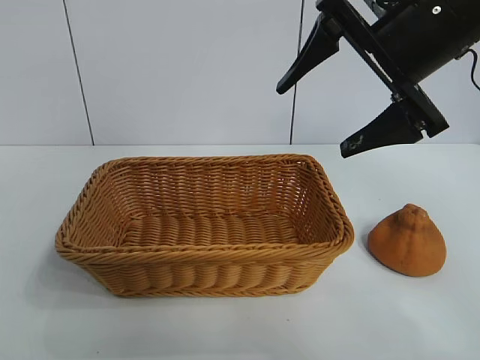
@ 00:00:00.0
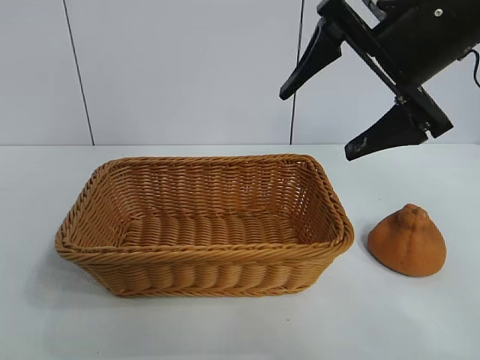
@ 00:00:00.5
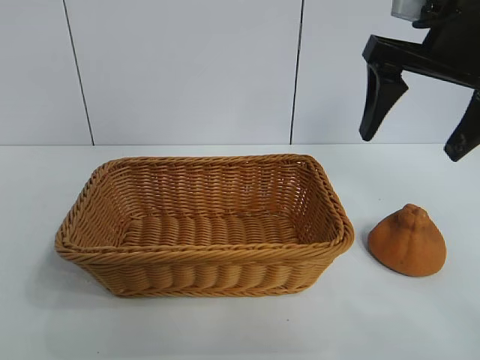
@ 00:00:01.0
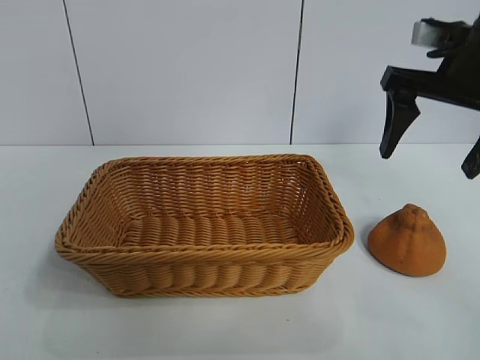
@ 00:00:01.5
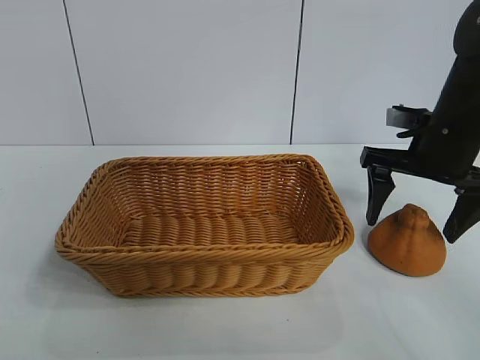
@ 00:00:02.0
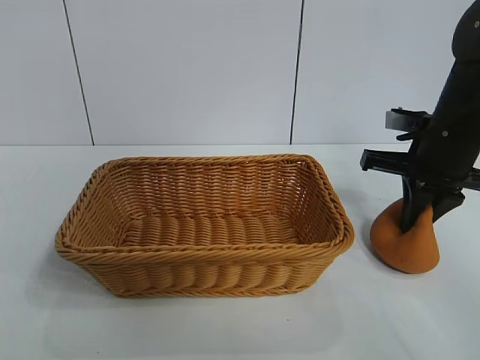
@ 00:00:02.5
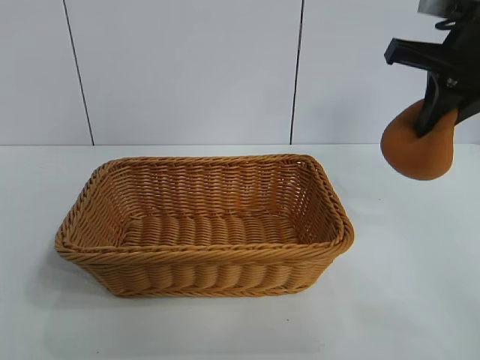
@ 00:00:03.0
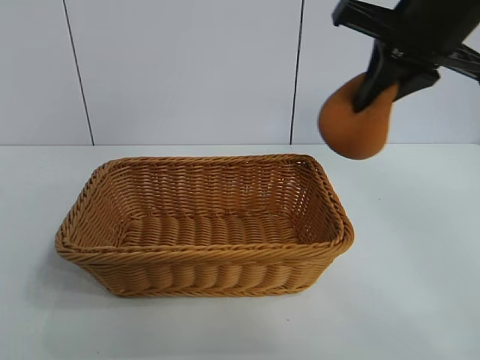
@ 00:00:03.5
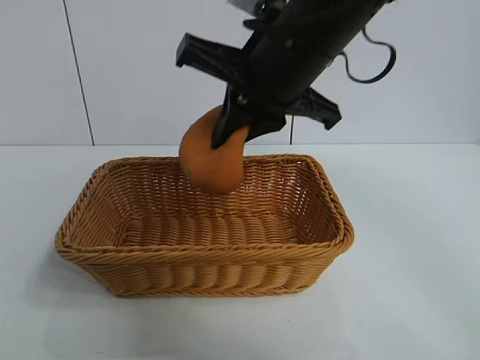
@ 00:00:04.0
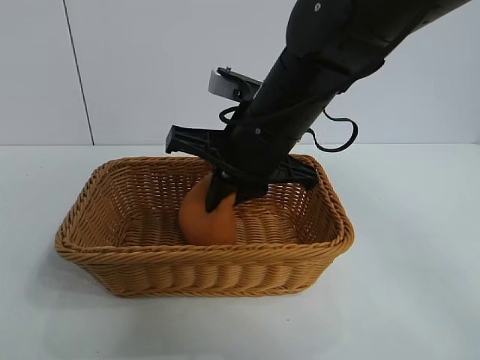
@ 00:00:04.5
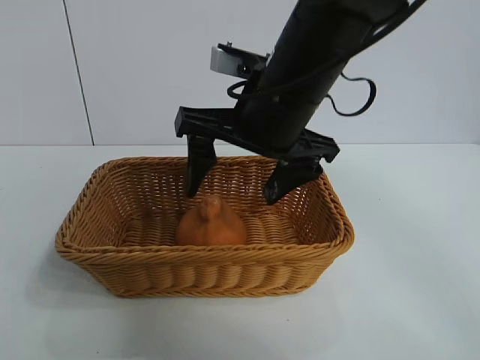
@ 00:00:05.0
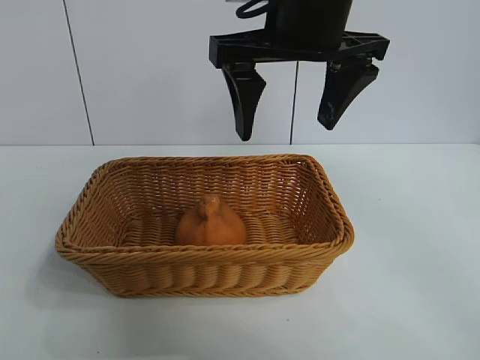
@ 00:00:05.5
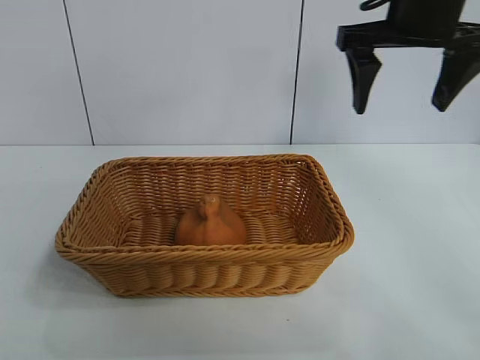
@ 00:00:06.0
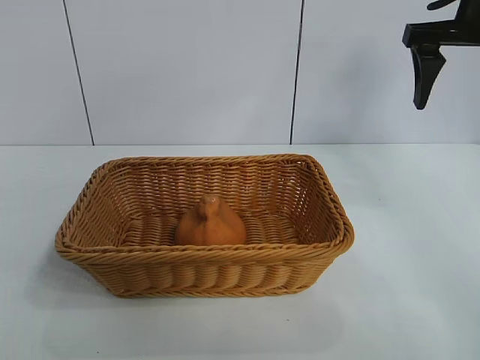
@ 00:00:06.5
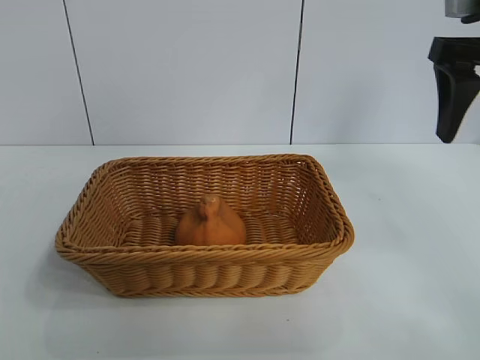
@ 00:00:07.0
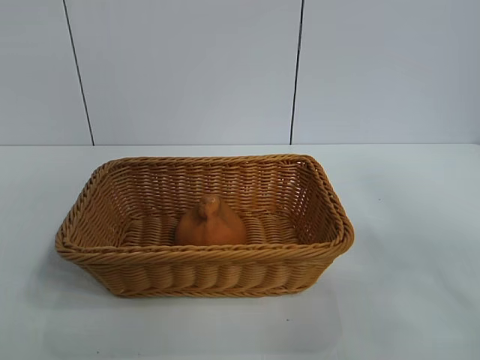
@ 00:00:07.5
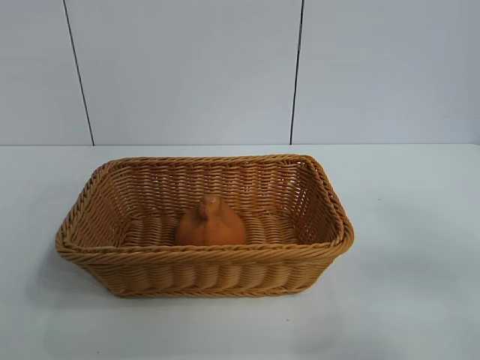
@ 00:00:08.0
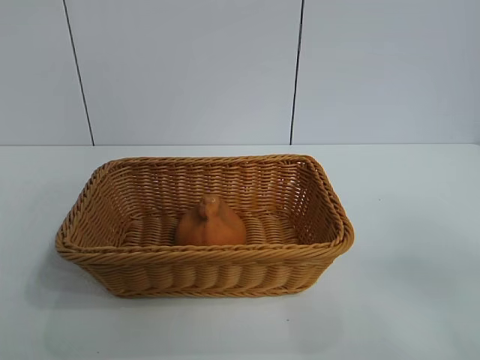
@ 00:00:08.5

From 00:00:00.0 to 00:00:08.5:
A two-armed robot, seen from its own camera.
Task of the whole recording: pick up the orange and put it into the basket.
Step, from 00:00:00.0 to 00:00:02.0: Grasp the orange with right gripper.
Step, from 00:00:03.0 to 00:00:05.0: Place the orange in the basket with right gripper.

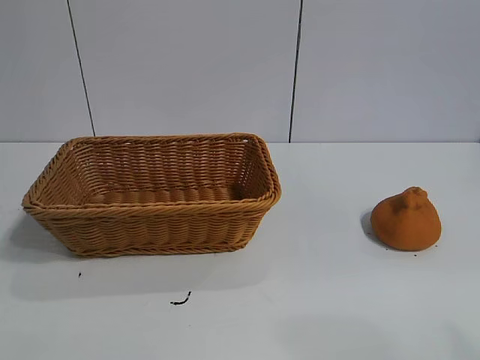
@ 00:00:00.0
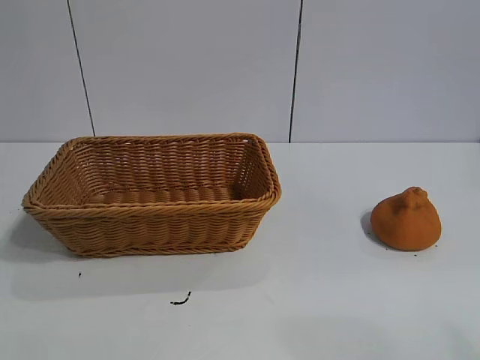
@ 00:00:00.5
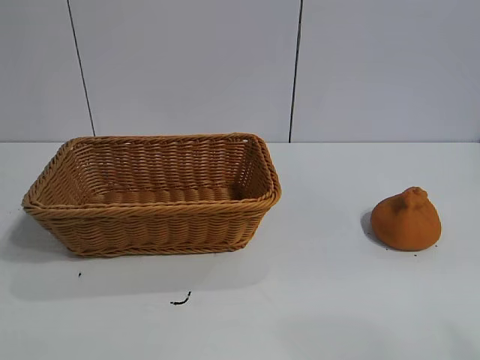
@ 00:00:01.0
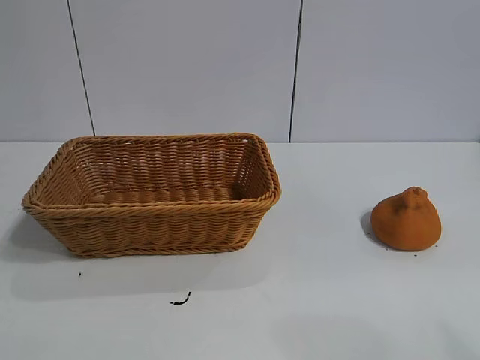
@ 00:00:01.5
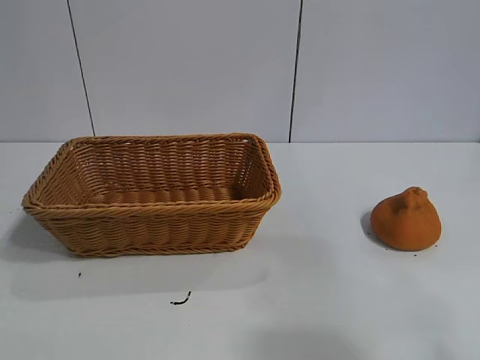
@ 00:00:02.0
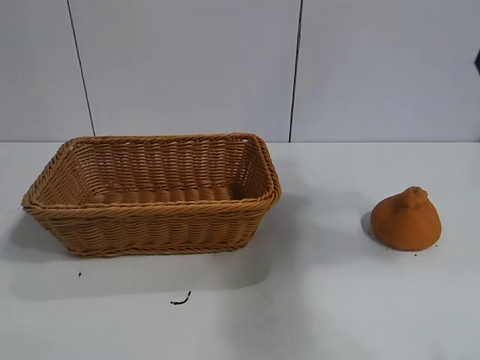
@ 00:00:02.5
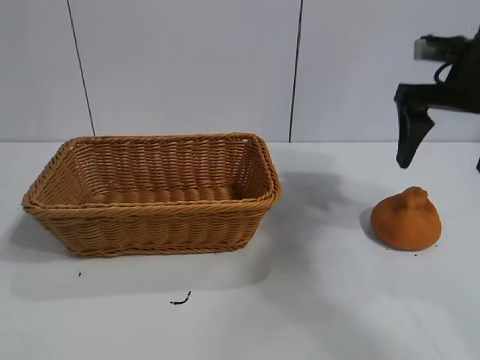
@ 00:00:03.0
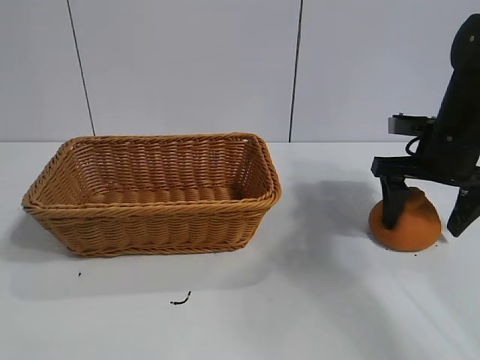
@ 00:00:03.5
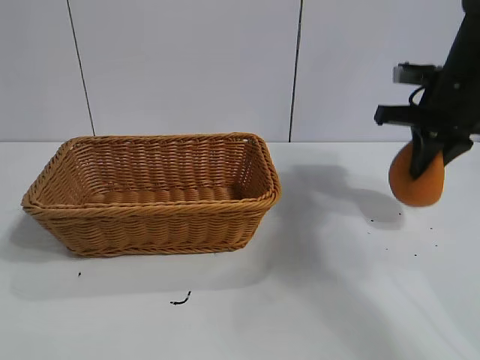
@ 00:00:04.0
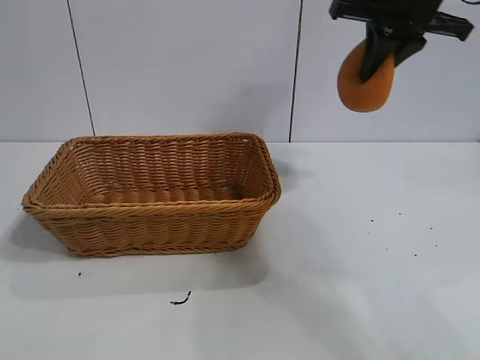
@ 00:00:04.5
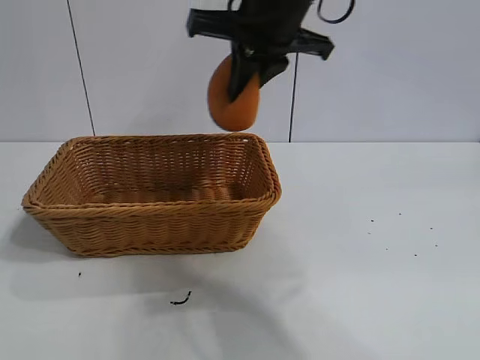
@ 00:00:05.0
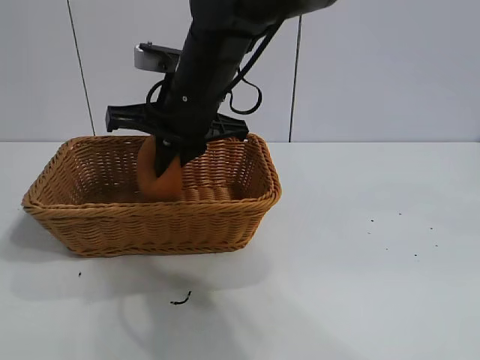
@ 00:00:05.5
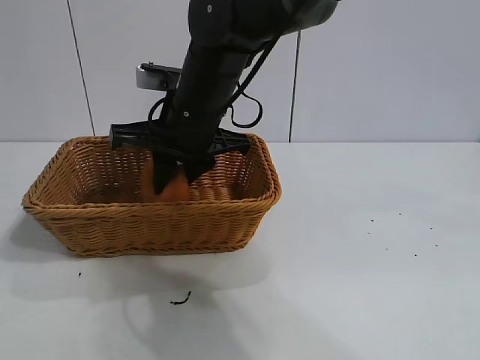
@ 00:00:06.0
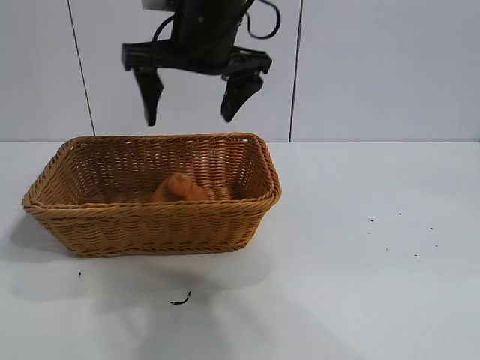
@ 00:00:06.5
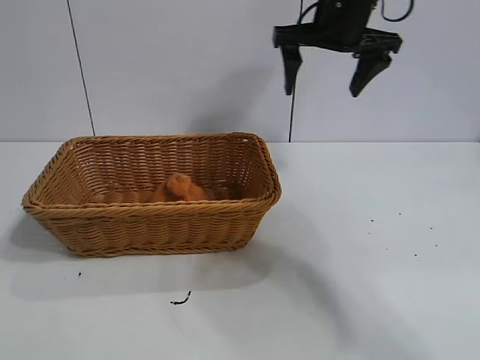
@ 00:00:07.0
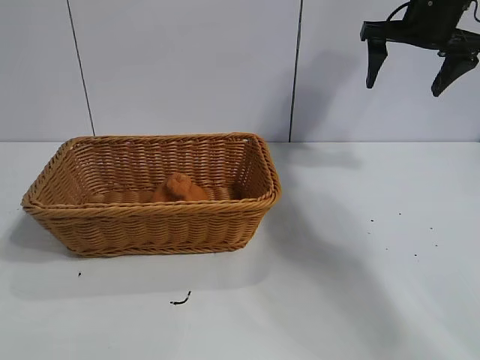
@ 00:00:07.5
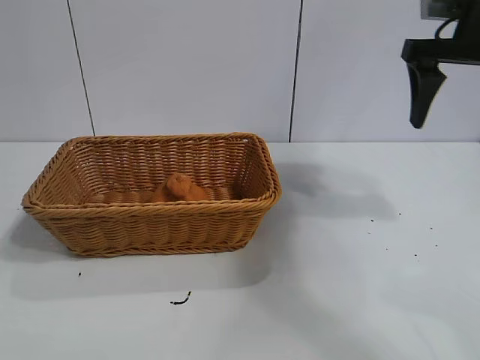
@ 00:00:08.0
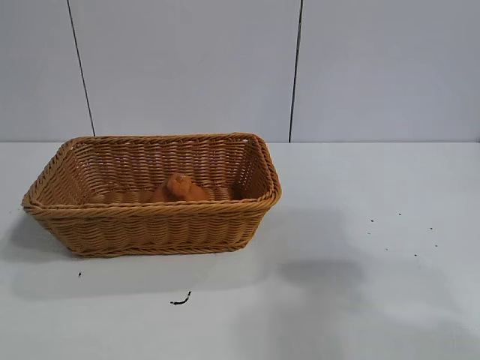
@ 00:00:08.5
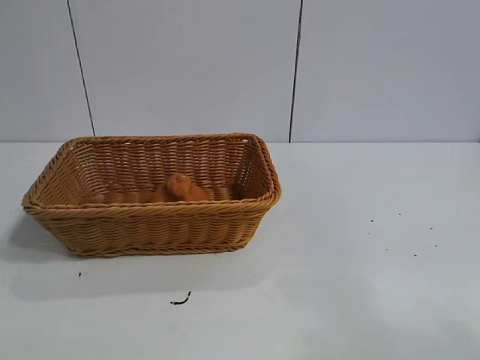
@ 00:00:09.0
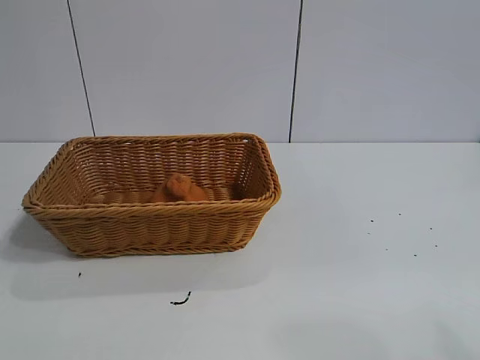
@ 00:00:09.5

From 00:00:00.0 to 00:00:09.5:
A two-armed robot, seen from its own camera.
Task of the whole recording: pick up the orange and put it into the basket.
Step, from 00:00:01.5 to 00:00:03.5: Grasp the orange with right gripper.
Step, from 00:00:04.0 to 00:00:06.0: Place the orange in the basket with right gripper.
